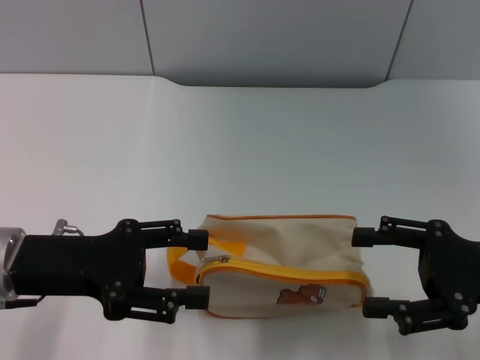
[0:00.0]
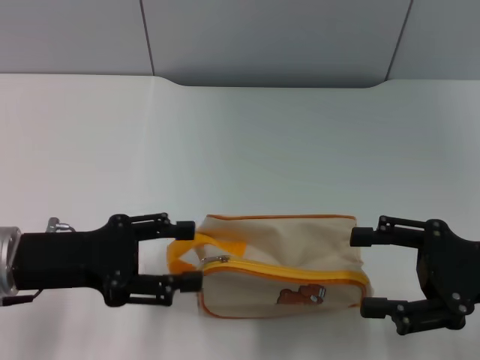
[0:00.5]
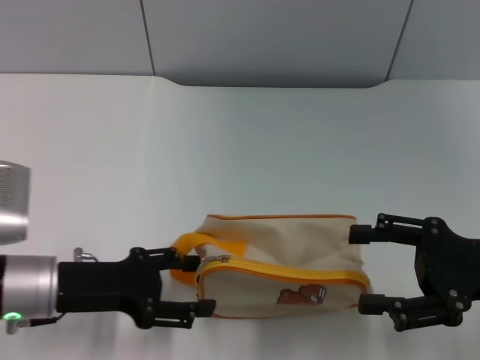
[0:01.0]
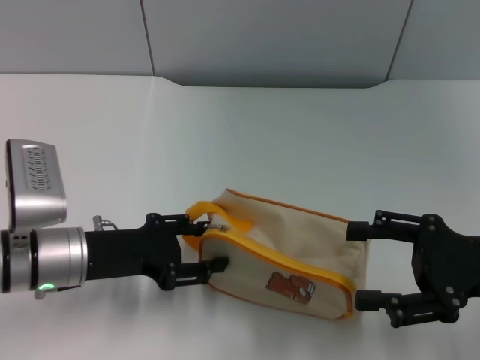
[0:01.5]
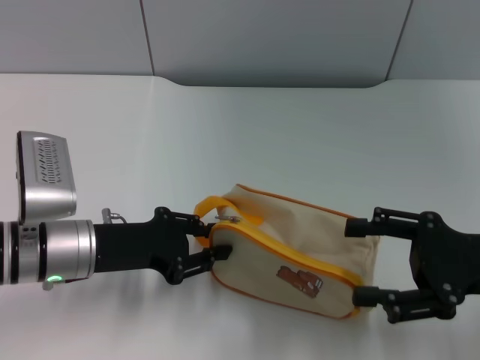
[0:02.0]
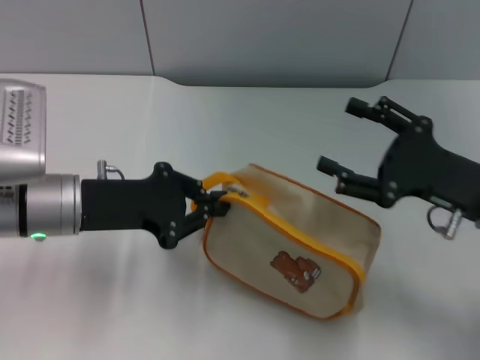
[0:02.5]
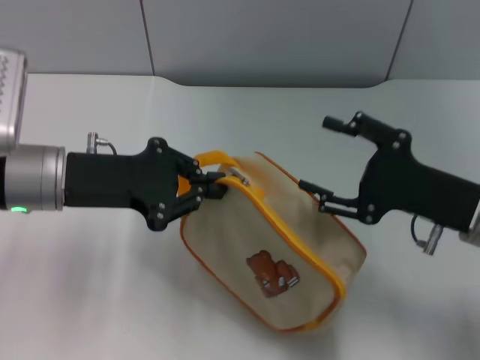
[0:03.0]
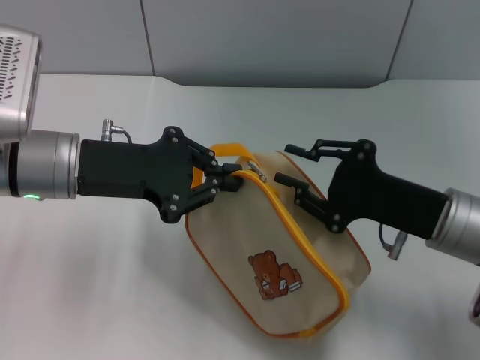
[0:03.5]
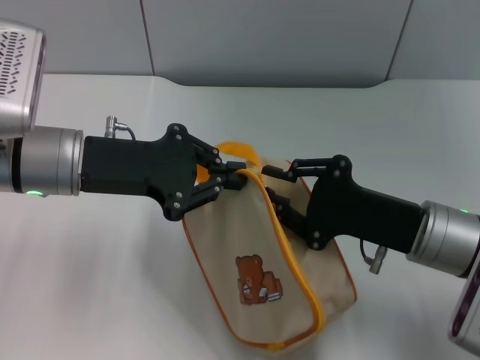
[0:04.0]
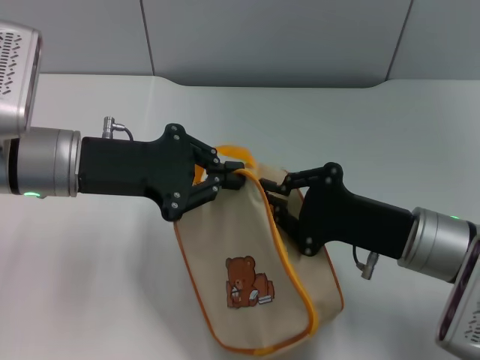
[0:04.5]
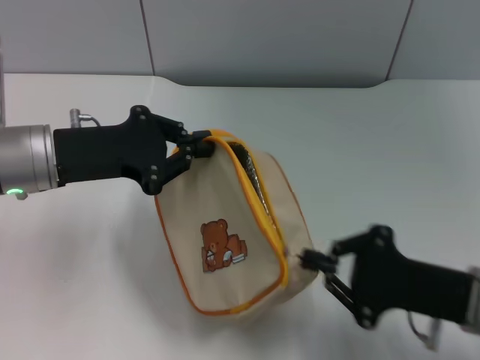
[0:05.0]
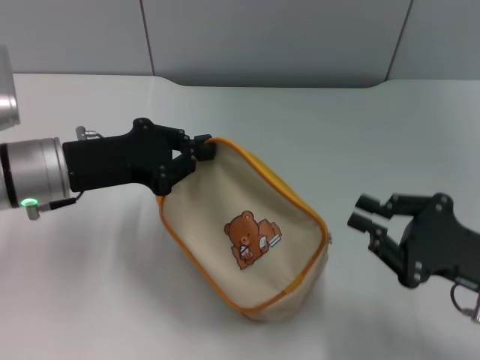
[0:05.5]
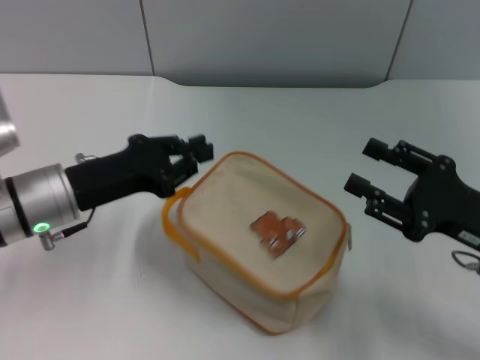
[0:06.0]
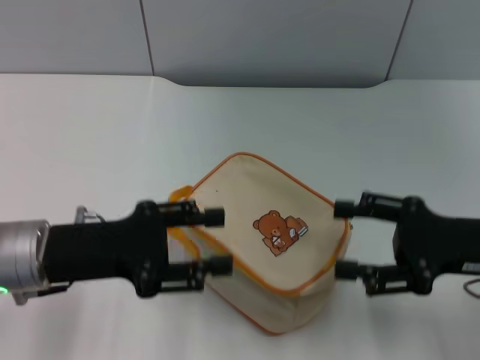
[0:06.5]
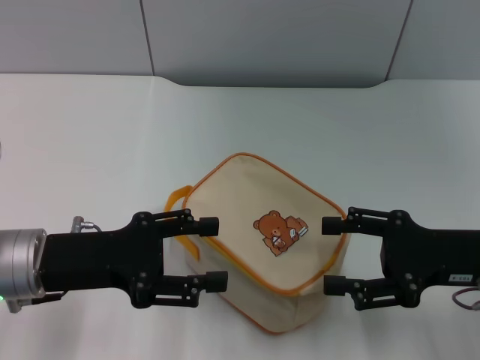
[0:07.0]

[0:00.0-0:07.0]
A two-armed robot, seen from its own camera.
Step, 0:00.0 to 0:03.0: Pick up the bag with left gripper.
Step, 0:03.5 to 0:05.0: Unzip the zipper of bag with right gripper.
0:00.0 to 0:02.0: The left gripper is displaced downward by some 5 cm, and closes.
0:02.0 to 0:03.5: The left gripper is displaced upward by about 10 cm, and closes up; the right gripper heads to the left, covering roughly 5 cm.
0:03.5 to 0:05.0: The right gripper moves backward, roughly 5 cm, and closes up.
0:05.0 to 0:07.0: The left gripper heads backward, covering approximately 10 cm, and opens its fingers, while the right gripper shifts by approximately 5 cm, and opens.
